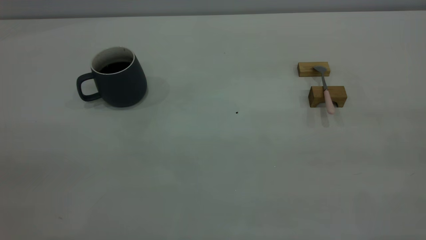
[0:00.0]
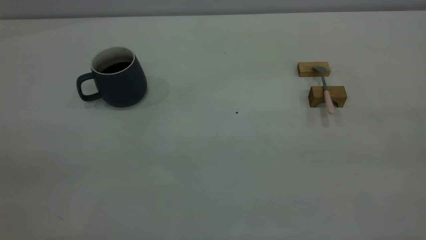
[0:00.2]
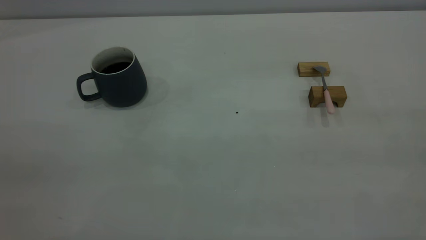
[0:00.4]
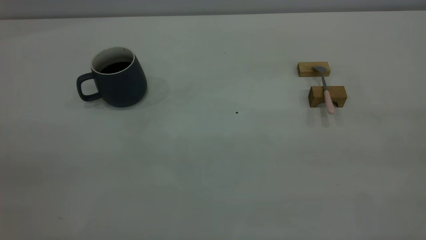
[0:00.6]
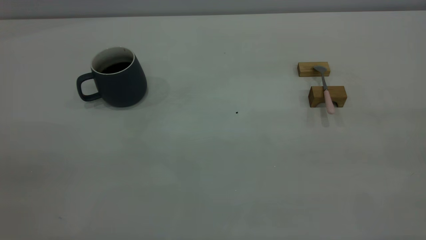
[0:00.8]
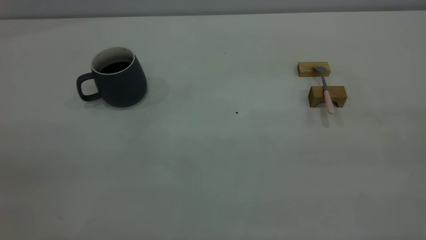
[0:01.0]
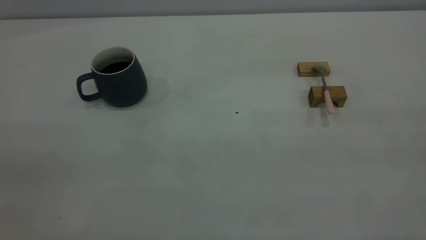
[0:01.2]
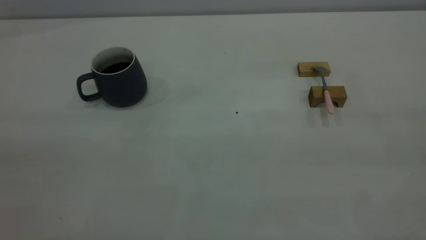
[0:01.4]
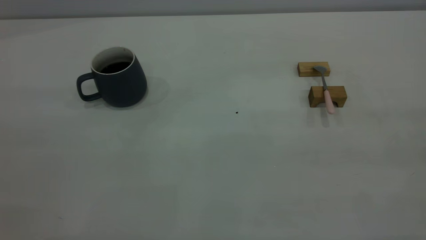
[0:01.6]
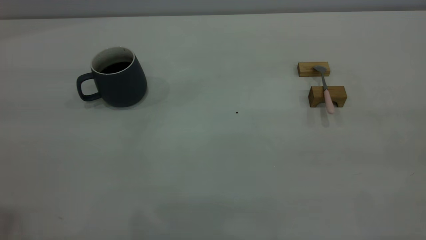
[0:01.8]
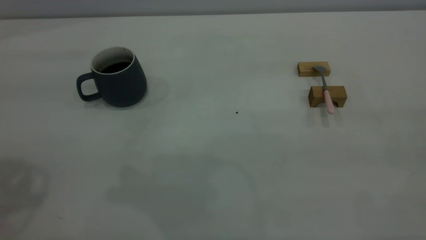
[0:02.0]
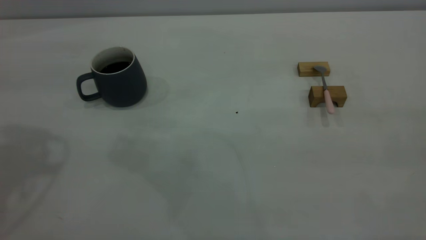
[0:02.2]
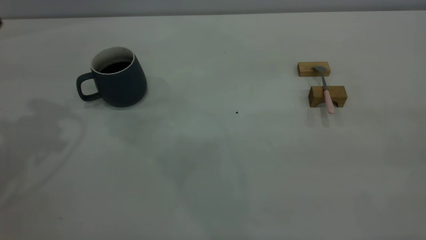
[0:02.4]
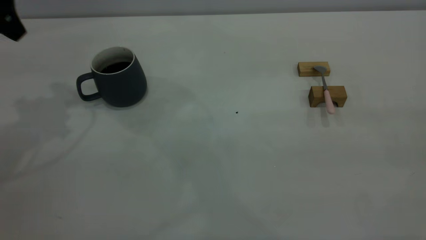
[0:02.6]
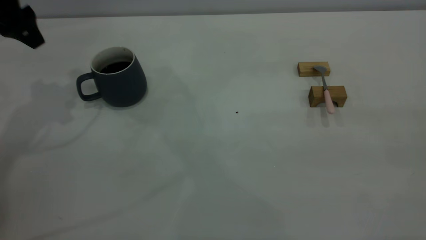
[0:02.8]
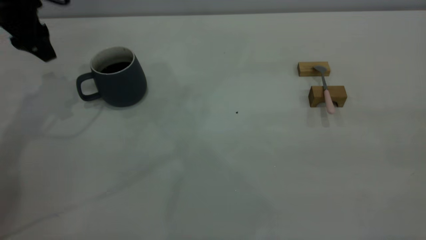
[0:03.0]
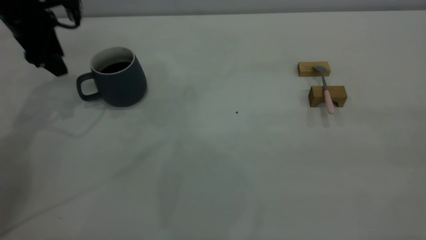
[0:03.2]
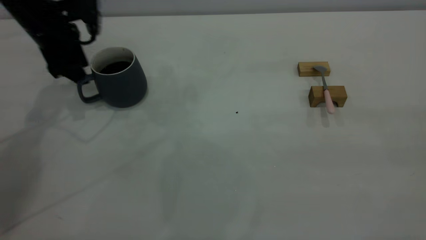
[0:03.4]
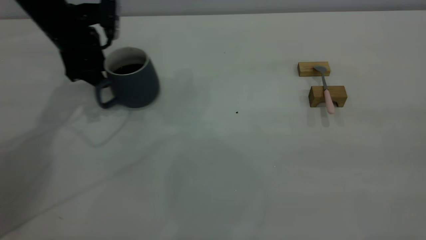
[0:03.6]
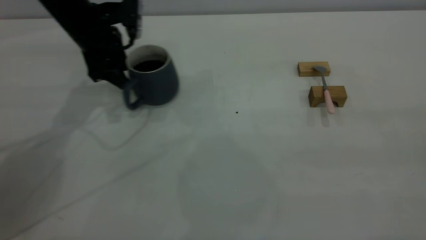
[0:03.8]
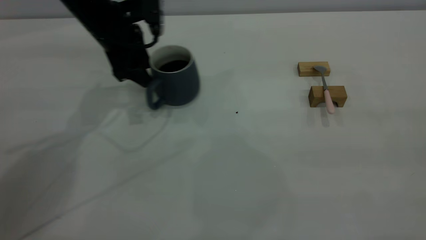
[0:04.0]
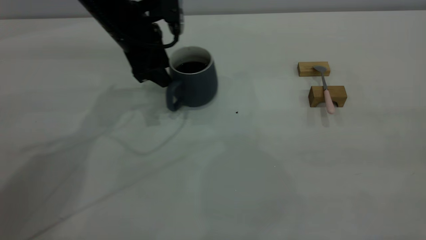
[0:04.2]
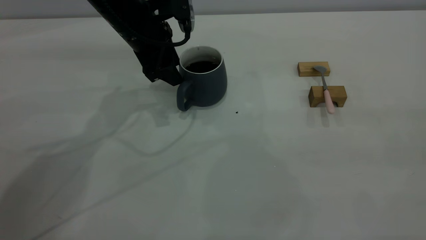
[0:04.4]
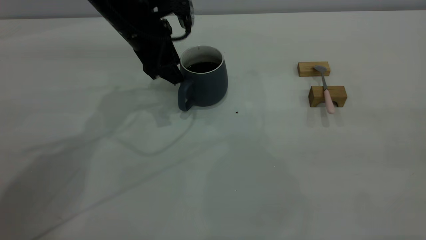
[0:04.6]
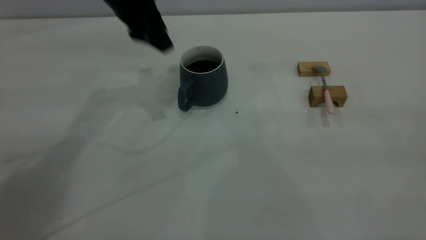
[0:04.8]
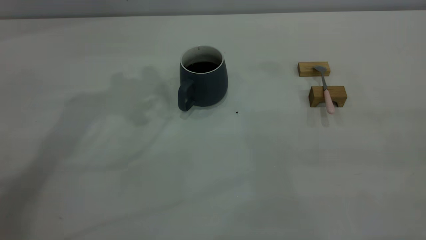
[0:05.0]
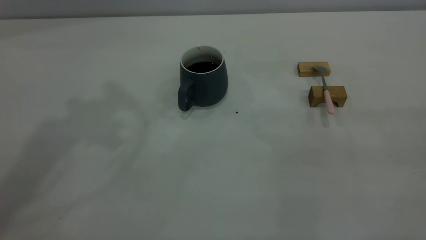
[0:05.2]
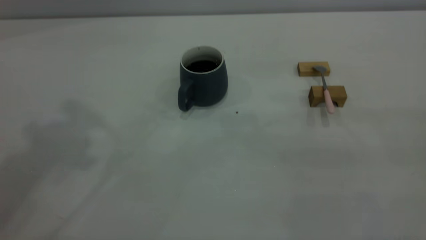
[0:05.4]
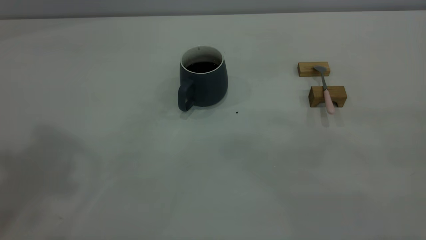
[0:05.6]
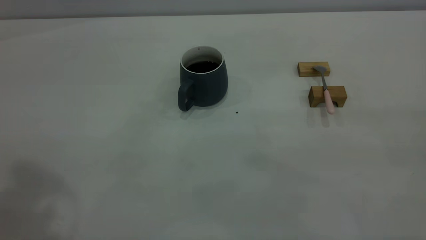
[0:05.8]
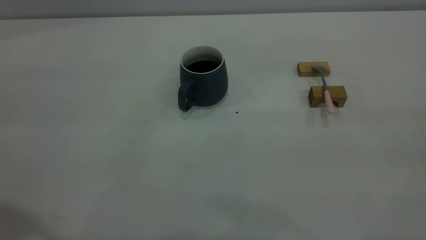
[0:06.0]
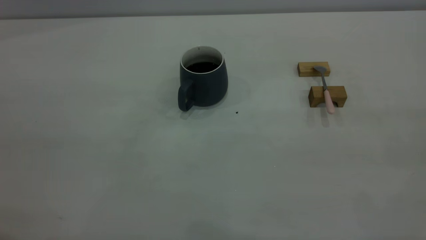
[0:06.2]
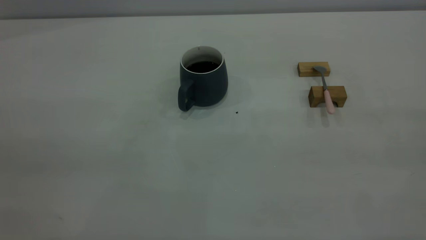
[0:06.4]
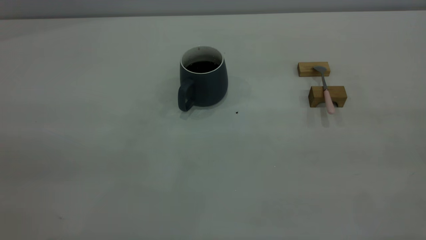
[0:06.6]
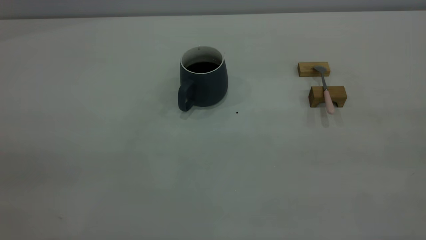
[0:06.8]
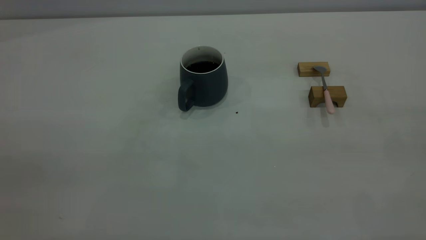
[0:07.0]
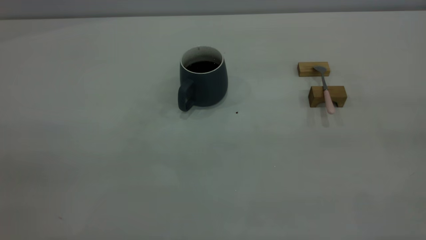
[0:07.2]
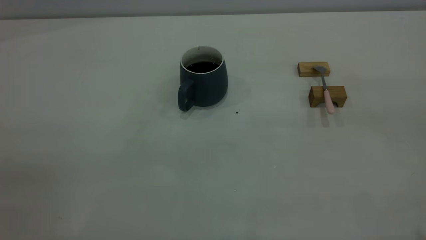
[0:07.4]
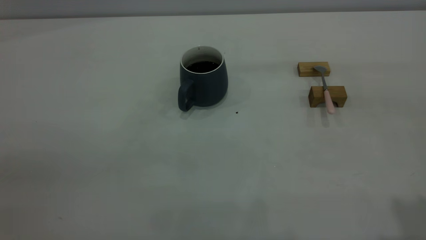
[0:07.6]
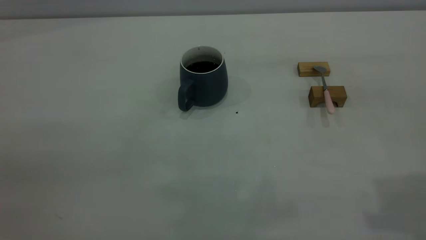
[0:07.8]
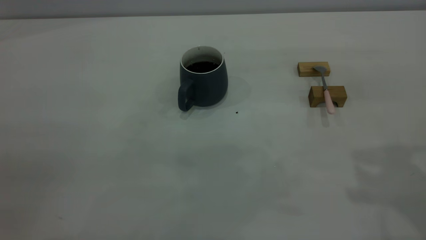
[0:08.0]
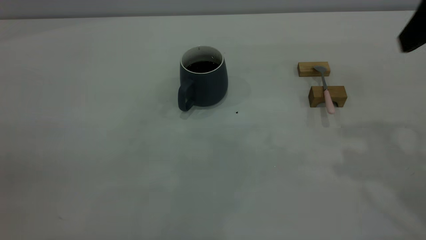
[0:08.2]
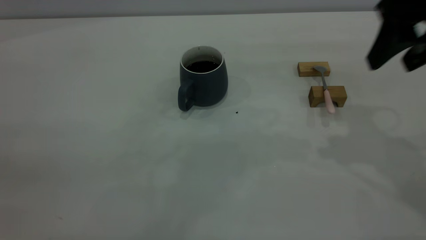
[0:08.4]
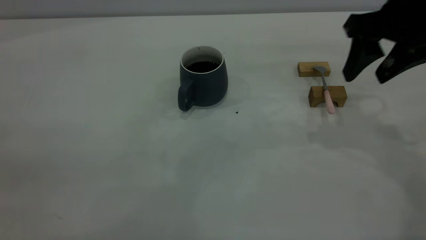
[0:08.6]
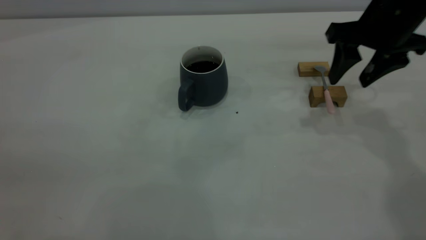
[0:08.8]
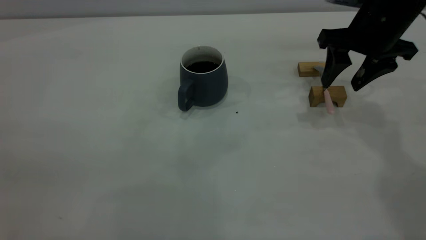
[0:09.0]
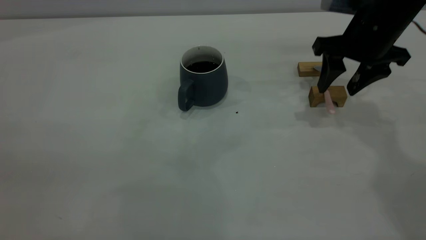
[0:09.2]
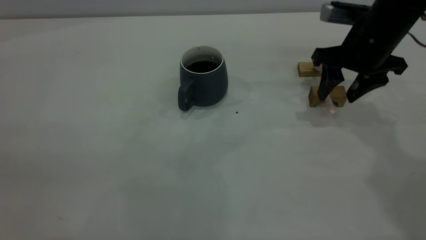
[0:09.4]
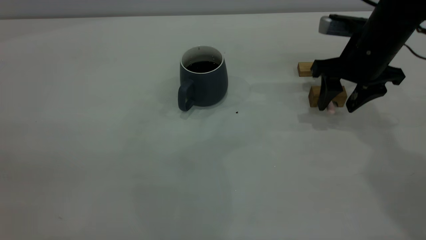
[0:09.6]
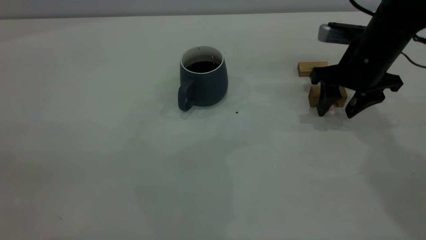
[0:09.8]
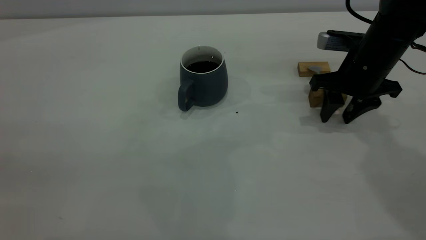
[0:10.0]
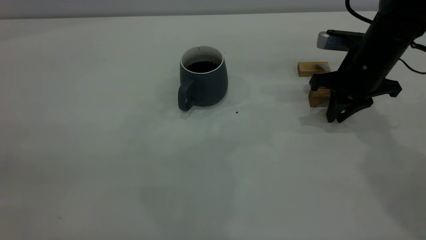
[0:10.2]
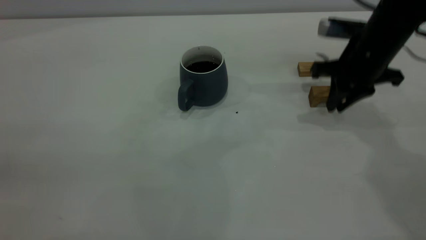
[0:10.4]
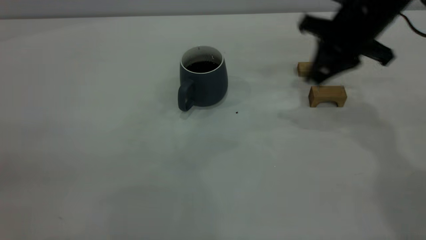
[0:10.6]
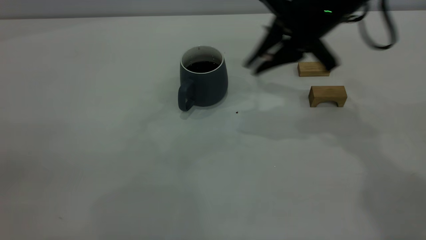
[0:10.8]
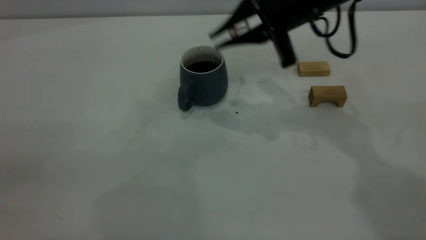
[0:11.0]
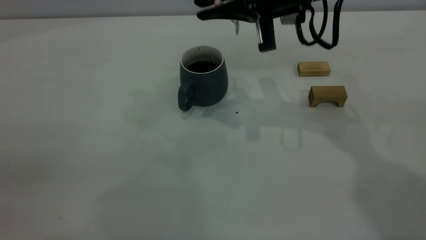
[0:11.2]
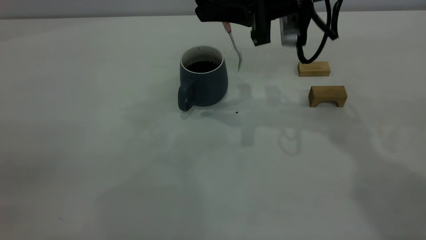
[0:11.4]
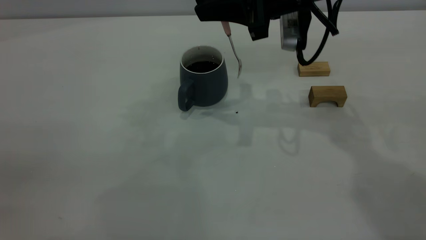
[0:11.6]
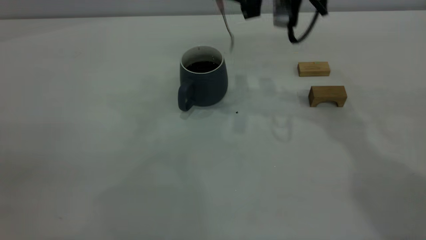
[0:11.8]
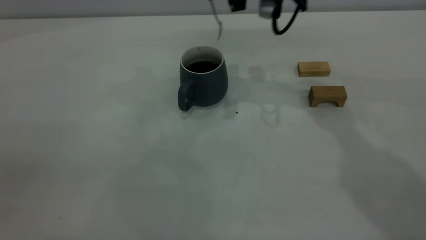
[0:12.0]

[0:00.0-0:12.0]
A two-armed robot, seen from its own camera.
Step, 0:00.0 to 0:04.8: Move the cup with coffee to the center of view.
Step, 0:05.0 to 0:10.6: Pick up the spoon.
0:01.6 to 0:03.0: The left gripper is displaced forward and downward by roughly 40 cm.
0:03.0 to 0:04.4: The left gripper is displaced to the right by some 15 cm.
0:04.4 to 0:06.0: The left gripper heads backward, upward and to the left, covering approximately 40 cm.
0:07.6 to 0:09.0: The right gripper is displaced forward and downward by approximately 35 cm, and opens.
0:09.0 to 0:10.4: The right gripper closes.
0:10.4 to 0:12.0: The right gripper heads to the left and upward, covering some 15 cm.

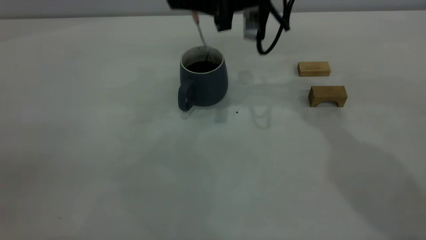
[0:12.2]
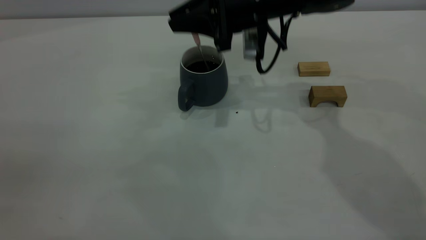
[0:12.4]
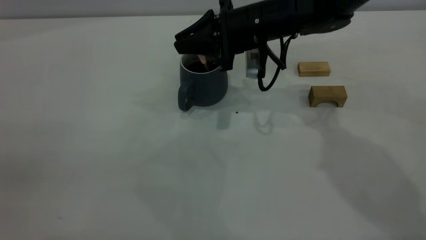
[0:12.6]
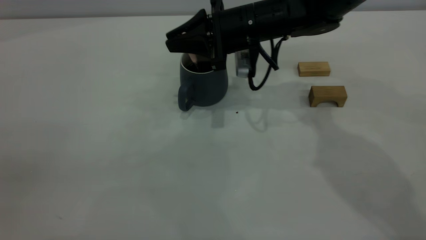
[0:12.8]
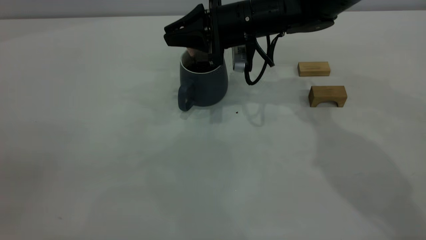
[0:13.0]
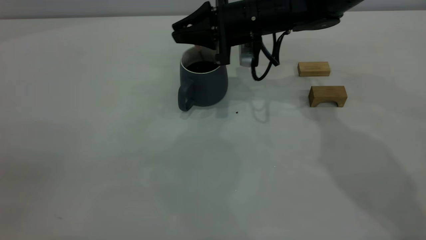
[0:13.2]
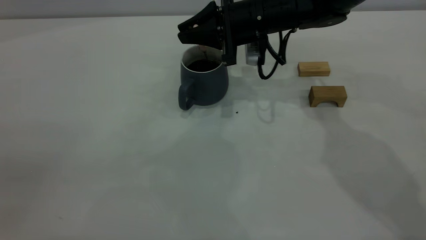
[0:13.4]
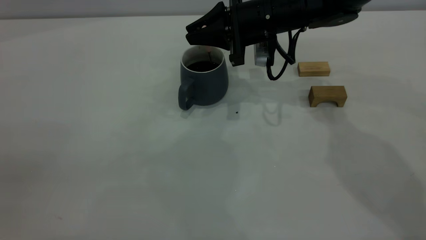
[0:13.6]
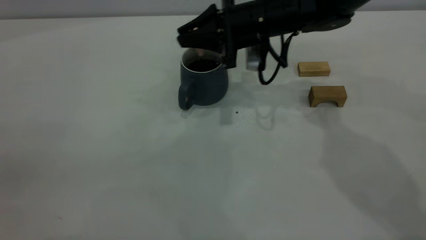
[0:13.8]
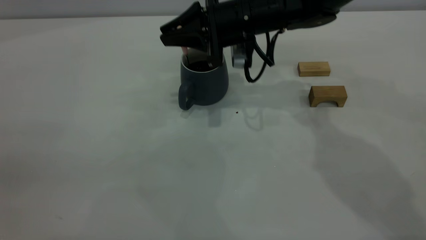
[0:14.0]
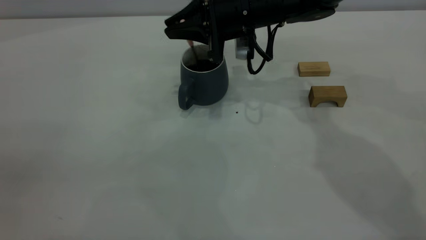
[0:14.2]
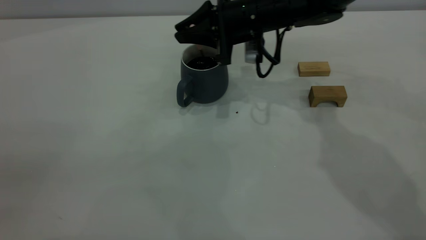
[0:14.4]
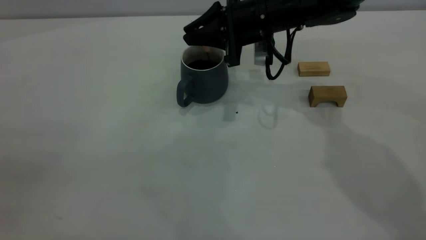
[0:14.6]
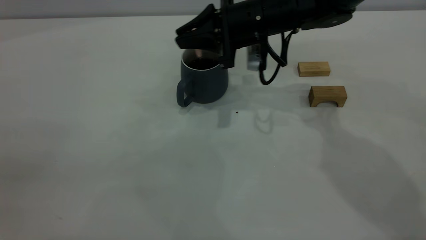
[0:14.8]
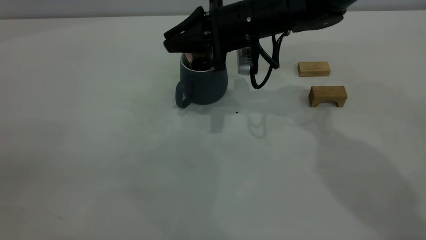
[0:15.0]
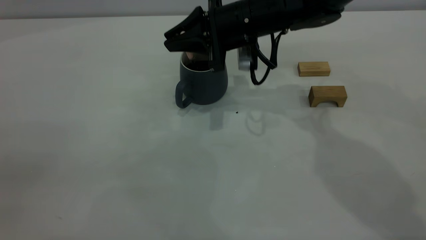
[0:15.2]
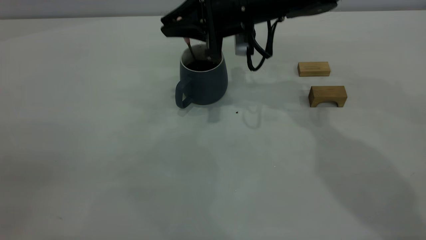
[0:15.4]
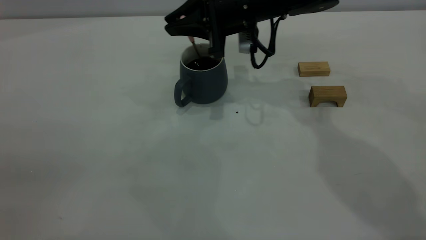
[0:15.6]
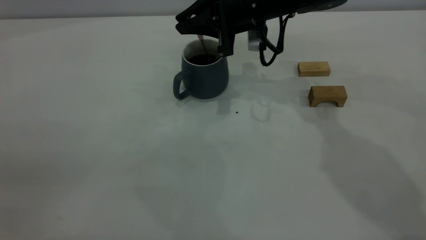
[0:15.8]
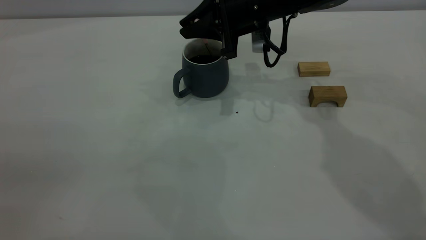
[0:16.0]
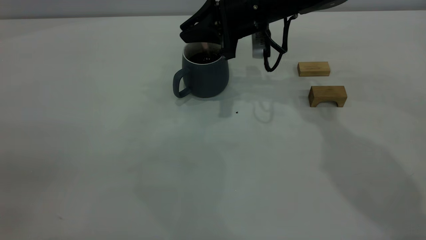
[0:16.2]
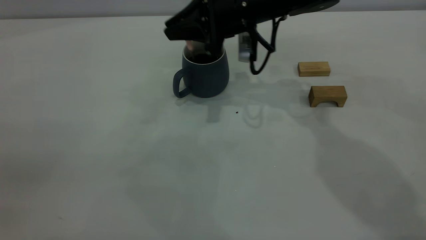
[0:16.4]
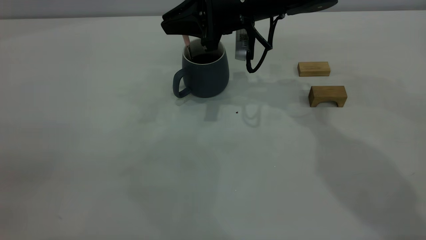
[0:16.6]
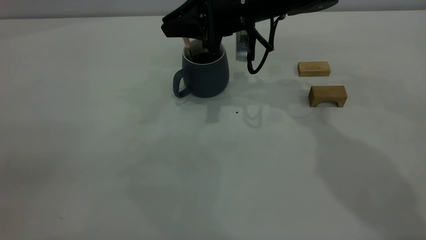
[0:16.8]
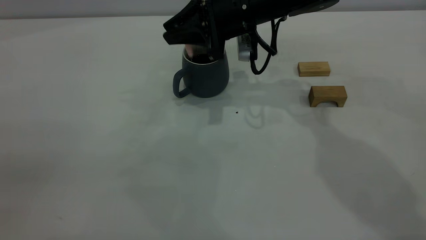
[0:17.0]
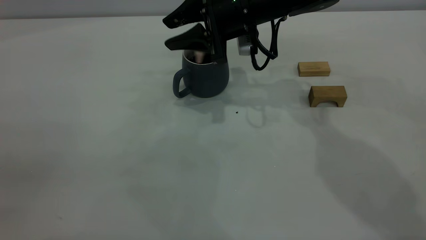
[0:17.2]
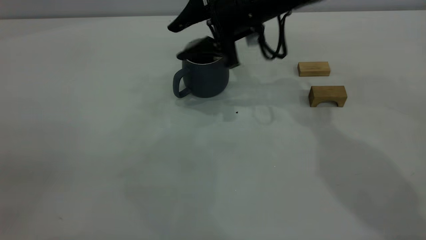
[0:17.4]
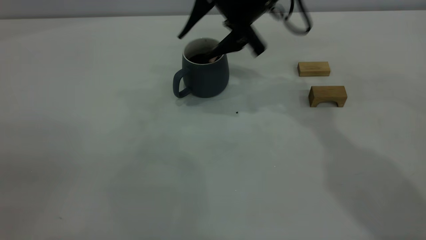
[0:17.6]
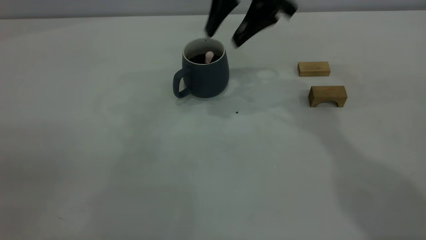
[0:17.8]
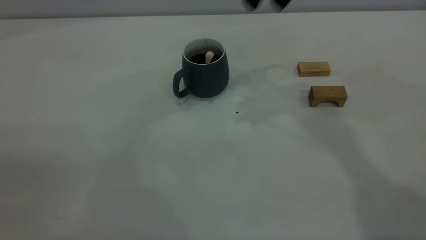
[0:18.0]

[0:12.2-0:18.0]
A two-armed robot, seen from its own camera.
Step, 0:12.2 to 0:17.8: Stir the coffee in the cup.
0:12.2 to 0:13.6: The right gripper moves downward, about 5 cm.
0:13.6 to 0:16.6: The grippers make only small movements.
0:16.6 to 0:18.0: The right gripper is displaced upward by approximately 15 cm, and opens.
